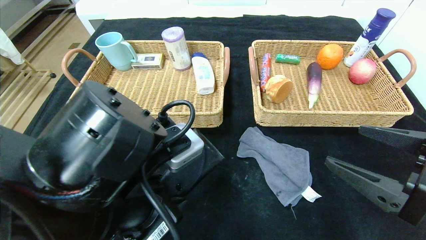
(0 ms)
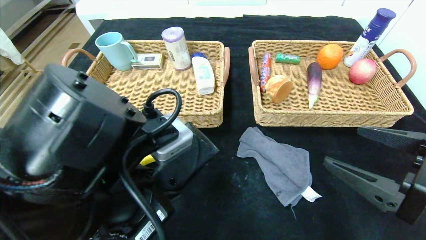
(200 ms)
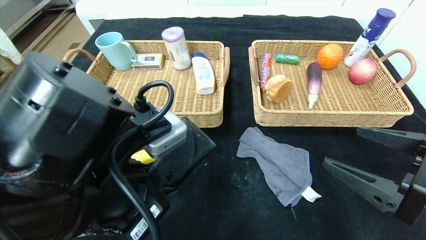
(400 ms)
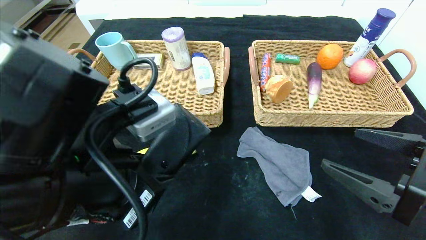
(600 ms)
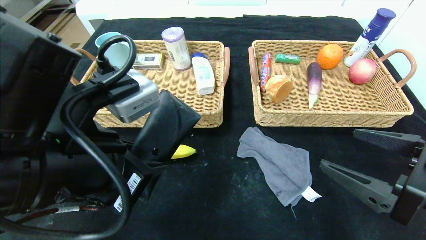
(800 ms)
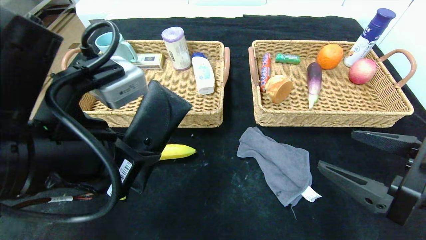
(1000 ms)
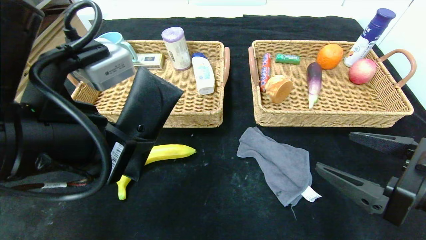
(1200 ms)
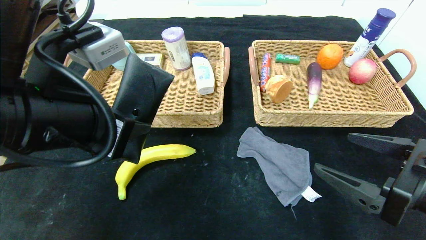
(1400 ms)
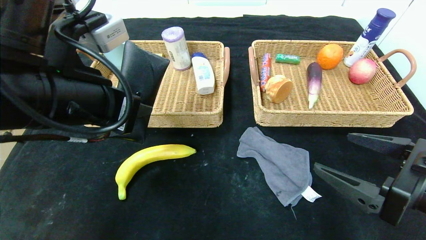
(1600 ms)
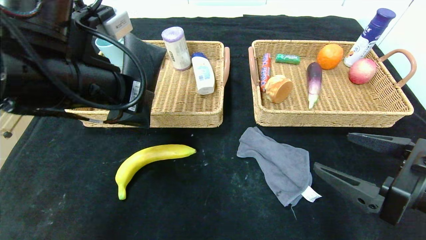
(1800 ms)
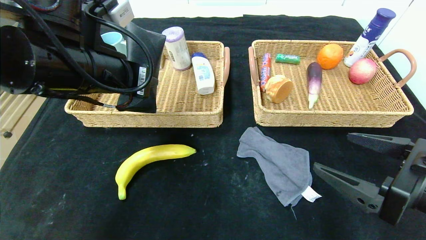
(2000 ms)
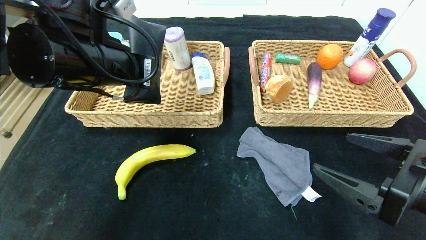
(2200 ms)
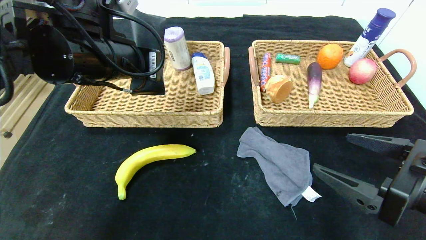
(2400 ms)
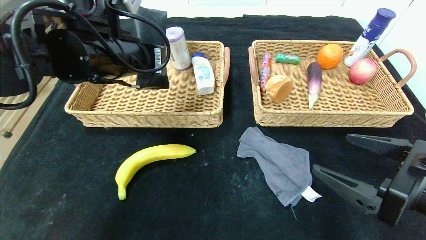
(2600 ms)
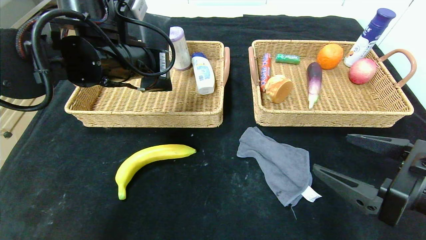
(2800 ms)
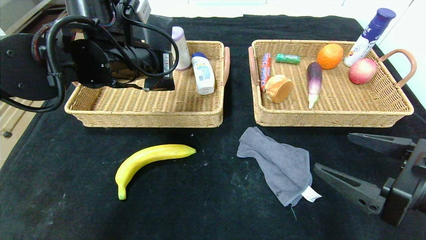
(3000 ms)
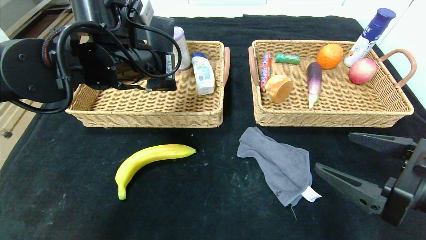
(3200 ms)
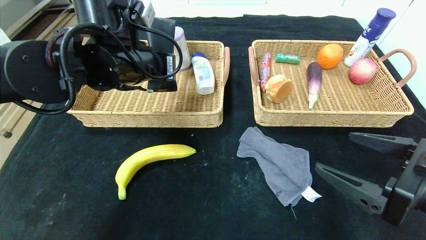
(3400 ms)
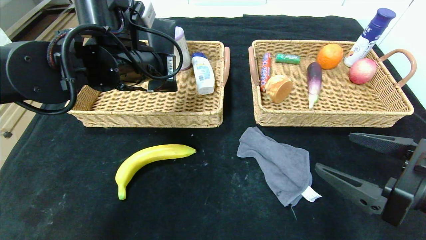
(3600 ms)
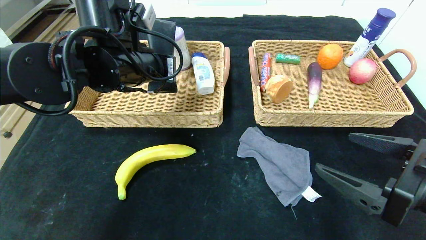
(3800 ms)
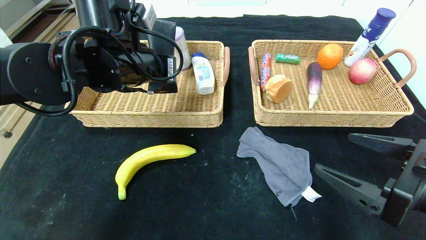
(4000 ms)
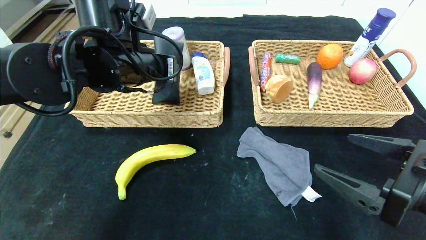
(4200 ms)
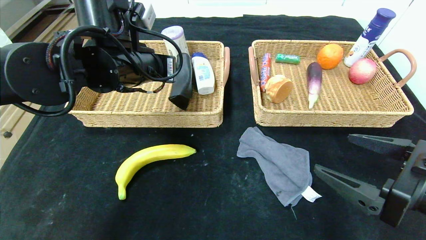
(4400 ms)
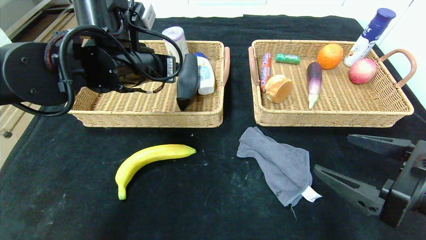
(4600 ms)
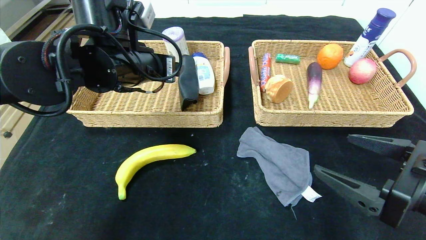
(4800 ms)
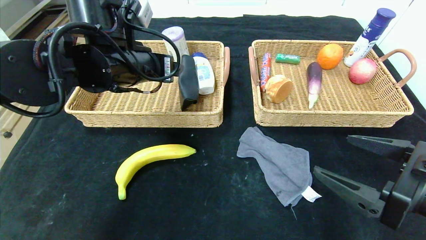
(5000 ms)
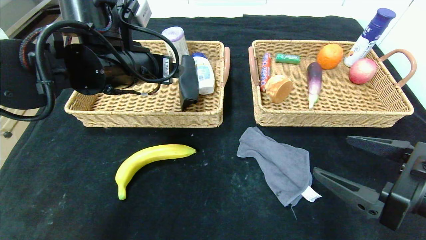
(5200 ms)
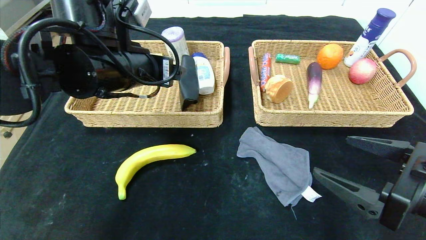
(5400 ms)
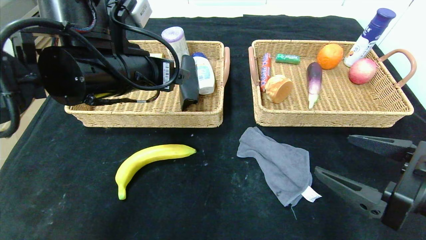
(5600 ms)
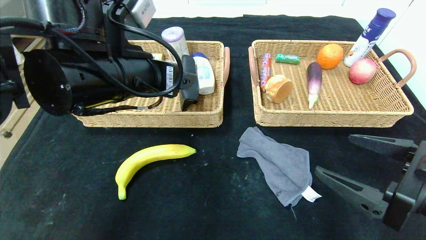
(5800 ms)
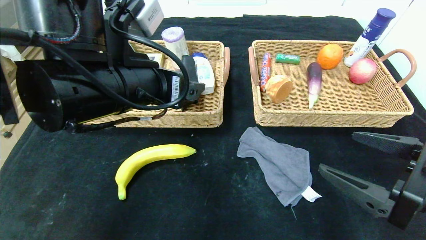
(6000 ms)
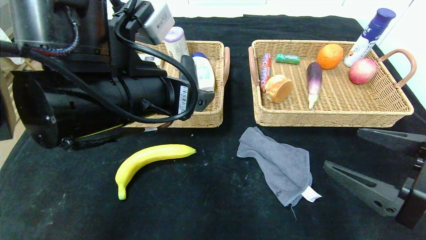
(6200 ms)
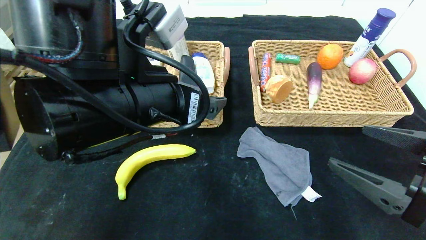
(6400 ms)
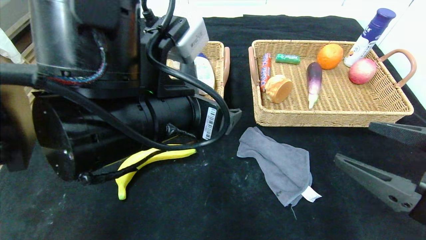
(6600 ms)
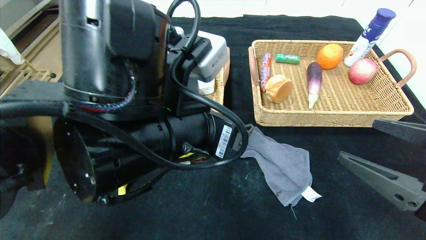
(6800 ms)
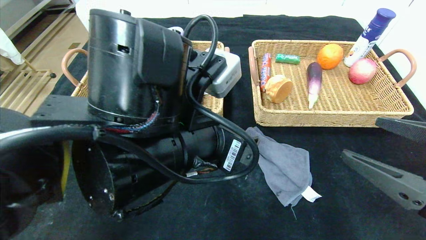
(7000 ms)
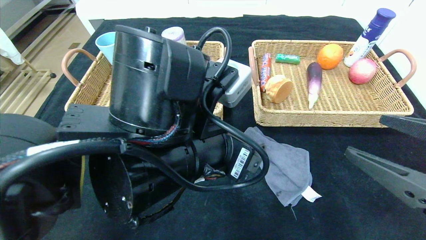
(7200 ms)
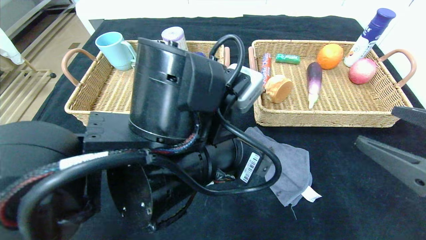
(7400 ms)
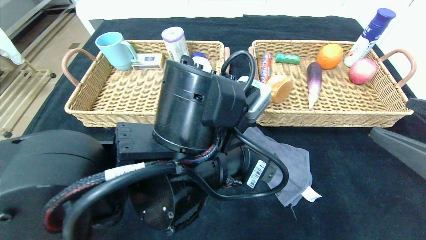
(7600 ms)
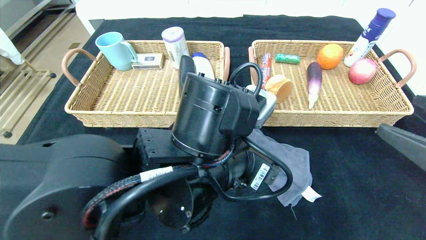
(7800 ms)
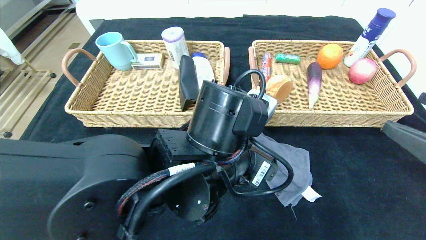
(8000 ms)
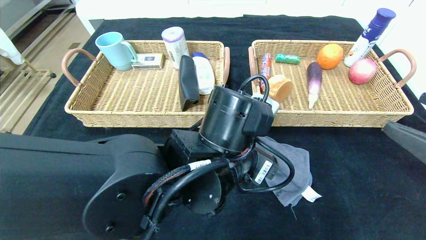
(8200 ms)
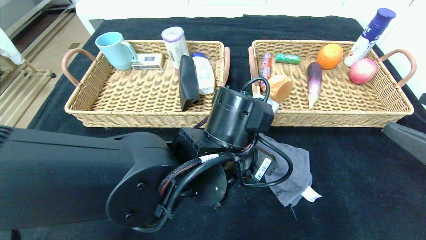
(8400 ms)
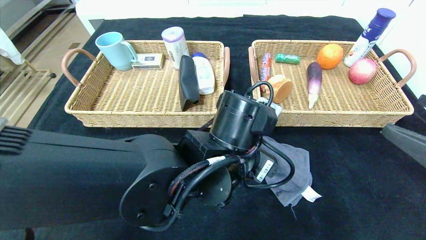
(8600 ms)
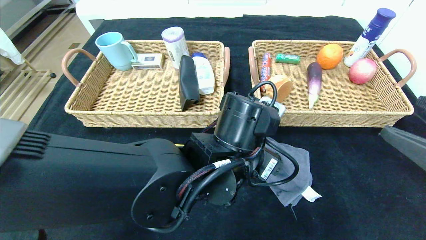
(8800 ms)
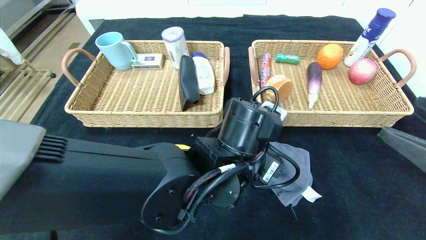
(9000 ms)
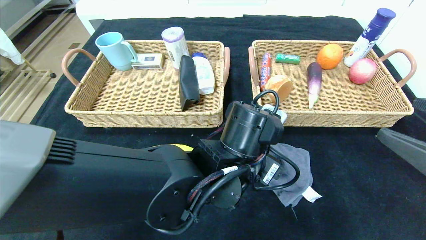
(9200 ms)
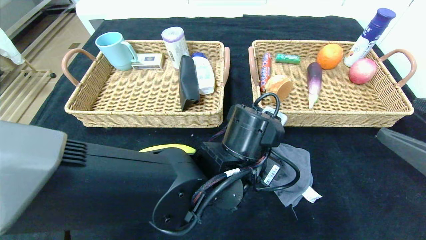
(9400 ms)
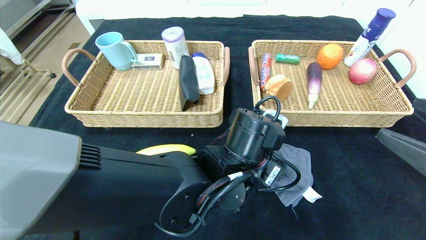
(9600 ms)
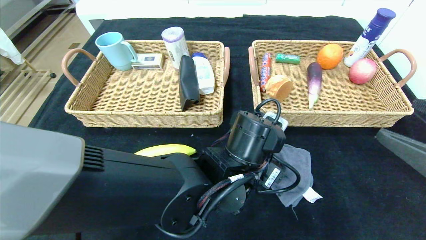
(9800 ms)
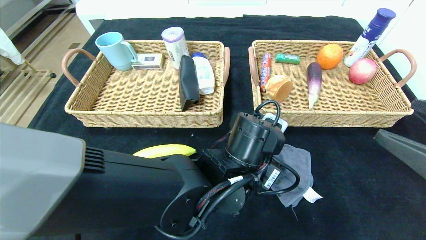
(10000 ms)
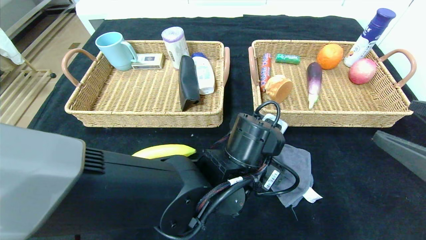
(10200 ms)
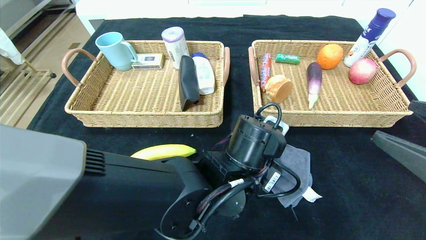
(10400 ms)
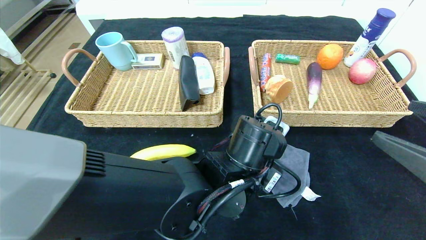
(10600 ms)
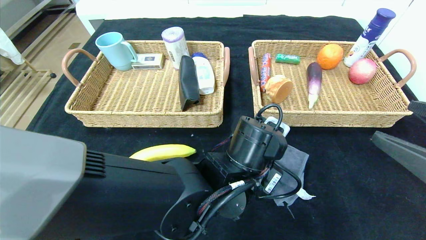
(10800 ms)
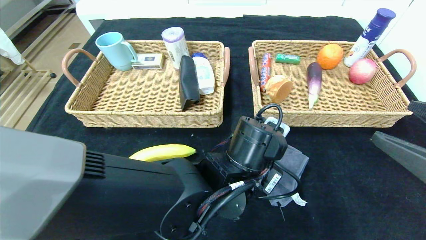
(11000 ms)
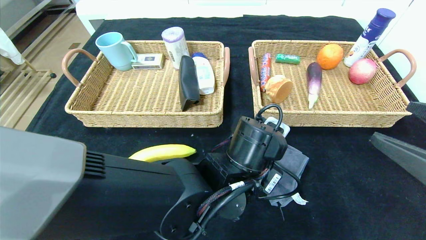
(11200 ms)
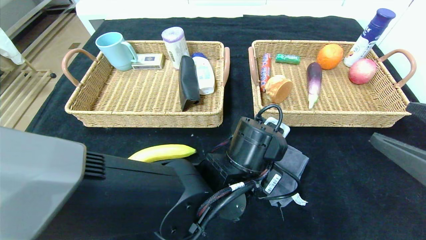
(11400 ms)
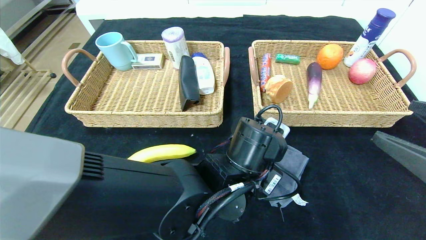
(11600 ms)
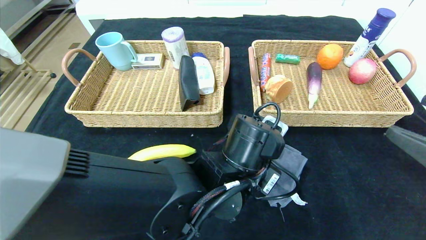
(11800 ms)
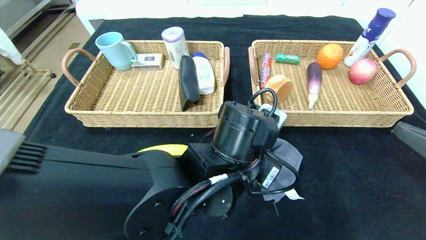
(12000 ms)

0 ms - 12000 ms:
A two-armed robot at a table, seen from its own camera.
Step, 0 ms - 4400 ms: Grasp the glasses case and put it in the left basket.
0 ms - 1600 ms: The left gripper shifts some 10 cm upward, forward and to the left.
1600 ms - 3000 ms: The left gripper goes some 10 cm forward.
3000 ms - 4400 ms: The left gripper opens its fingers.
4400 ms - 6000 ms: The left gripper goes roughly 10 cm backward.
6000 ms - 7600 ms: The right gripper ends up about 5 cm from where it was; the left gripper moves to the right and downward, approximately 10 cm.
7600 ms - 9000 ms: The left gripper ends up some 10 cm from where it was.
9000 ms - 10400 ms: The left gripper closes up.
10400 ms - 12000 ms: The left gripper closes its fingers.

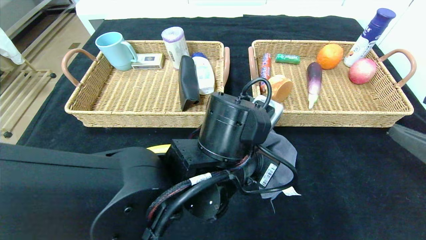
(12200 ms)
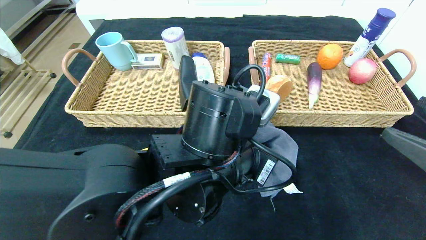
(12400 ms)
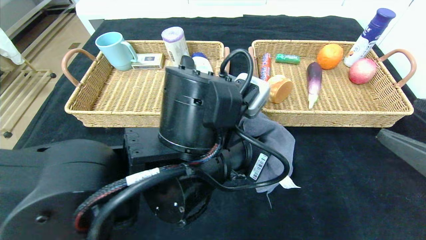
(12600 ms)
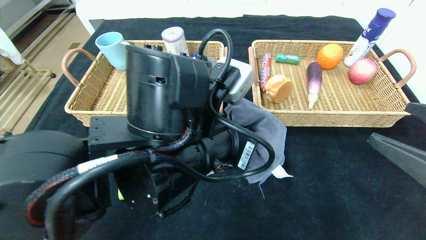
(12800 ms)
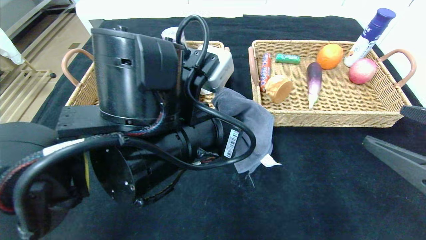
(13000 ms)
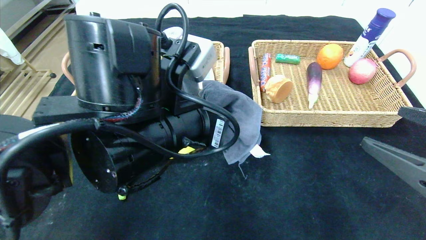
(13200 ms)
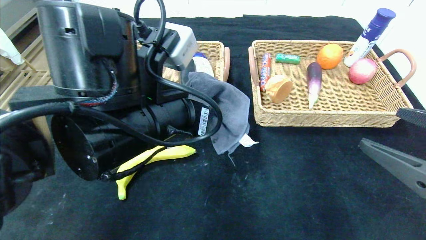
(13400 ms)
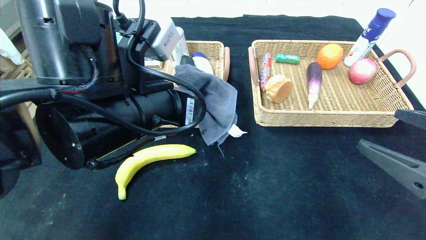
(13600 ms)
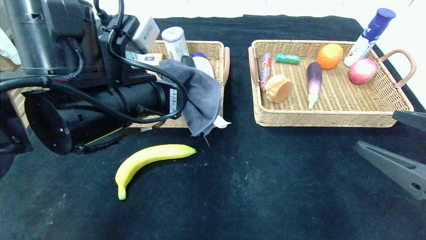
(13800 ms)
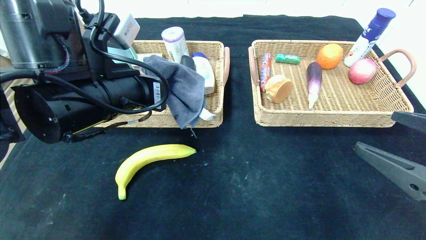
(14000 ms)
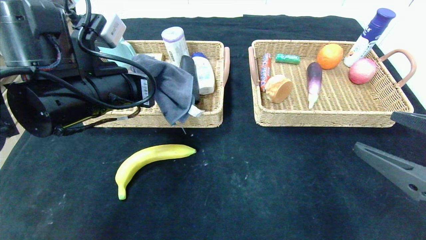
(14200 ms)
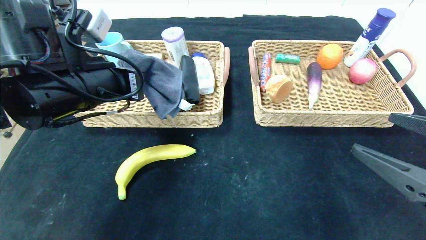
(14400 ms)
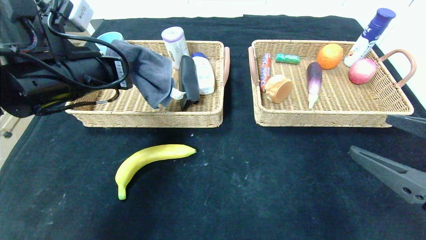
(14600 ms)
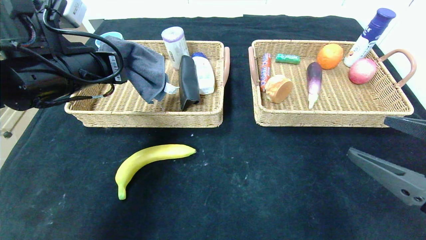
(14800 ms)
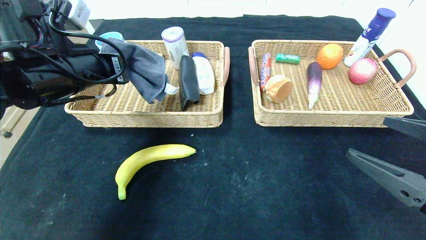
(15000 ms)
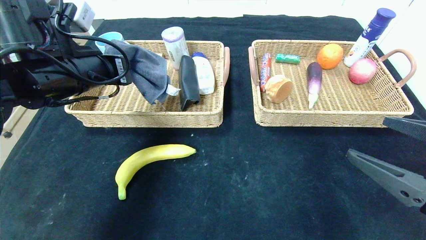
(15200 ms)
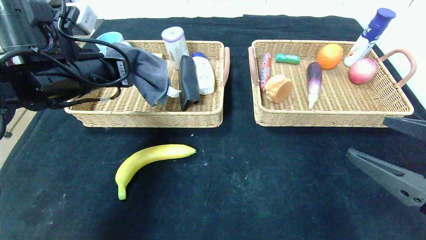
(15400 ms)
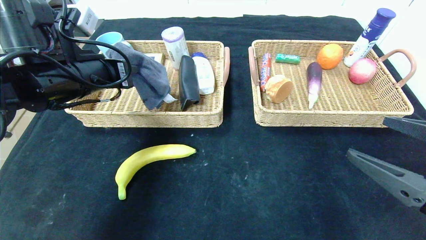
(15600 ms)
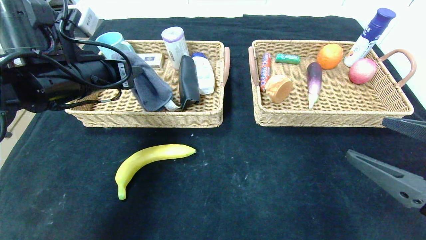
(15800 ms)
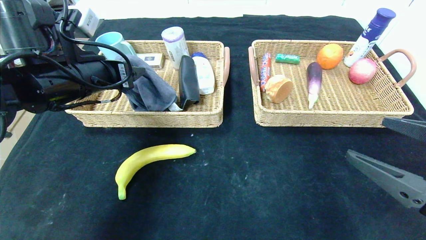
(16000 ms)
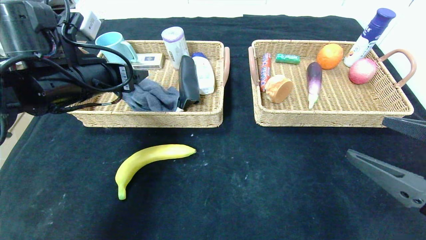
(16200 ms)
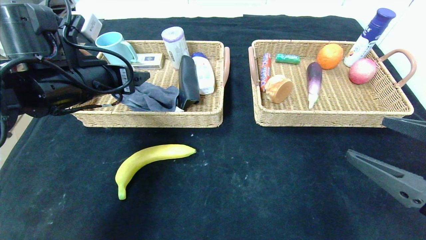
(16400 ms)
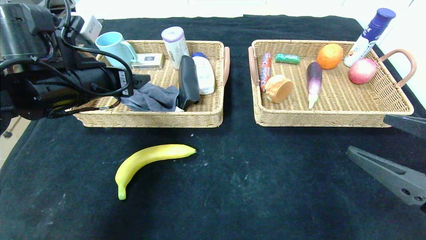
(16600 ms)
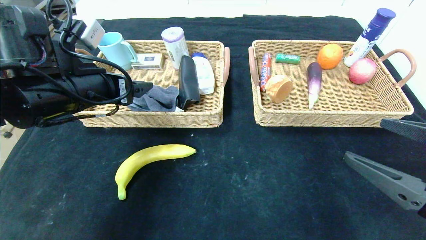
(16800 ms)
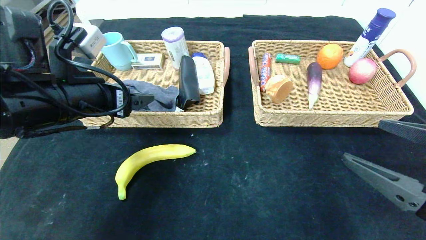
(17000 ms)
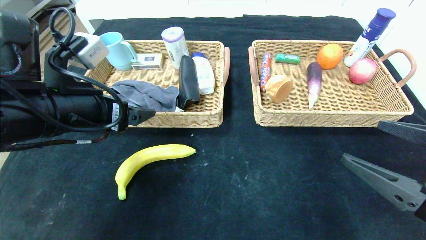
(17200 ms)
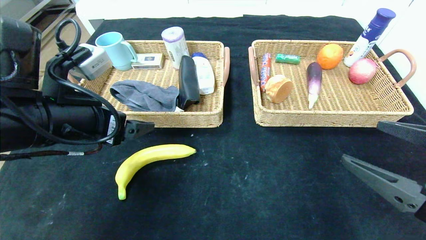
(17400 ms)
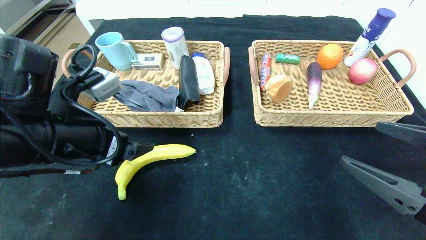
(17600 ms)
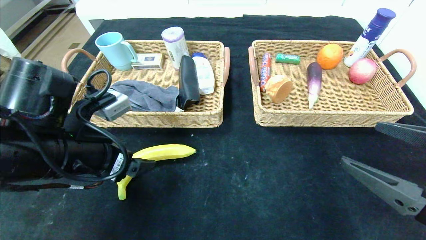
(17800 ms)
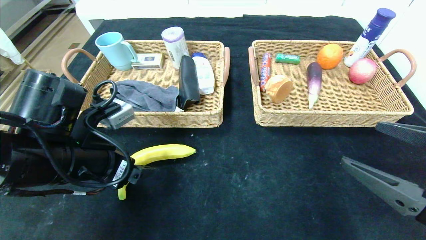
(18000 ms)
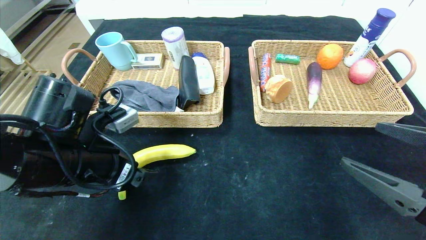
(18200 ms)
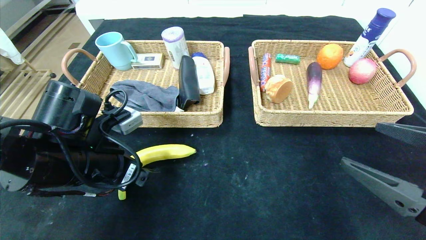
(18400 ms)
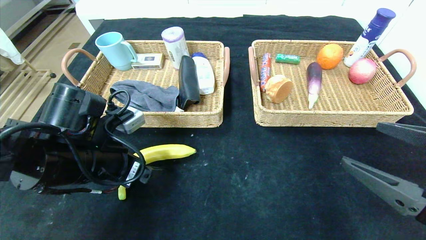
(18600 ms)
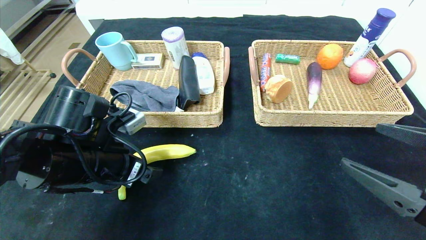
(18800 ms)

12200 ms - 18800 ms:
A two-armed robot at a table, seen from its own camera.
Step, 12200 ms - 16400 ms: Grasp the gray towel and put it in the left basket.
12200 ms - 13800 ms: The left gripper travels to the left and upward by approximately 15 cm.
13800 ms - 15400 ms: The left gripper is displaced to the left and forward by about 10 cm.
15400 ms - 17200 ms: The left gripper moves backward, some 5 cm, and opens its fingers.
17200 ms - 18800 ms: The left gripper is displaced downward by some 10 cm.
